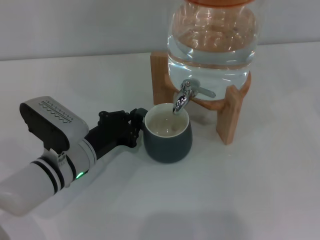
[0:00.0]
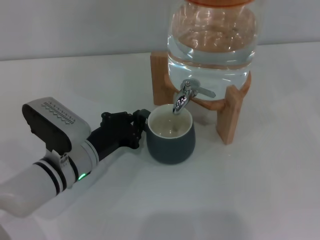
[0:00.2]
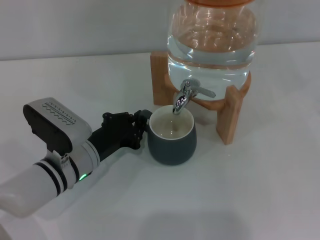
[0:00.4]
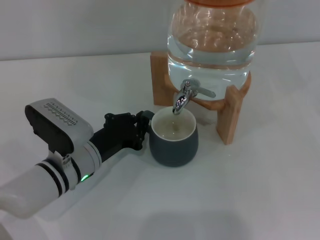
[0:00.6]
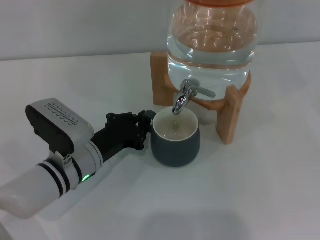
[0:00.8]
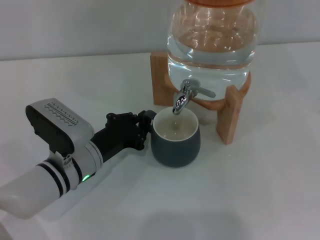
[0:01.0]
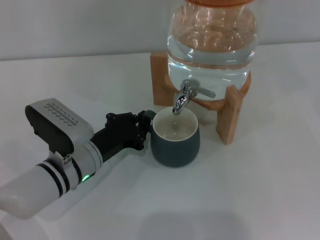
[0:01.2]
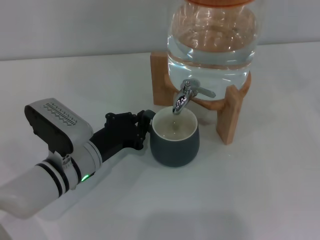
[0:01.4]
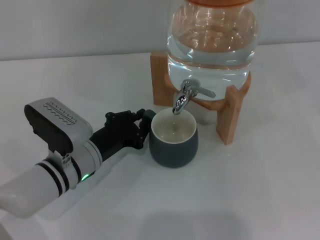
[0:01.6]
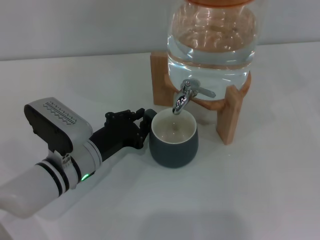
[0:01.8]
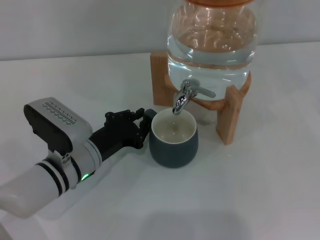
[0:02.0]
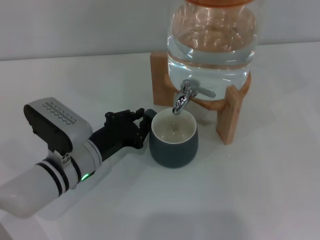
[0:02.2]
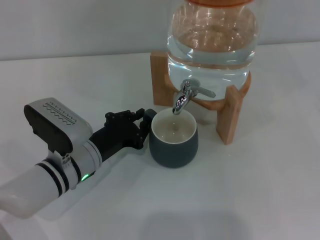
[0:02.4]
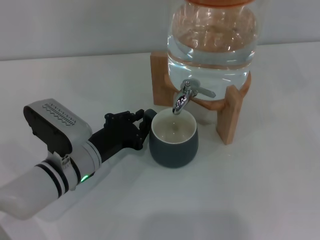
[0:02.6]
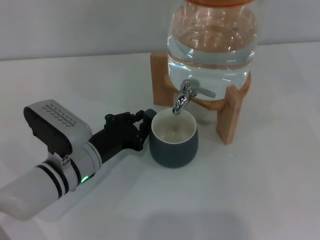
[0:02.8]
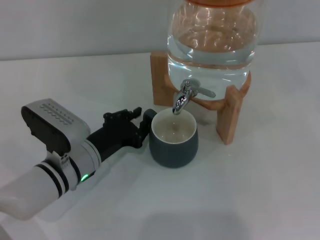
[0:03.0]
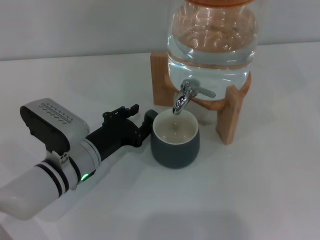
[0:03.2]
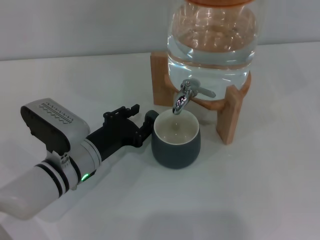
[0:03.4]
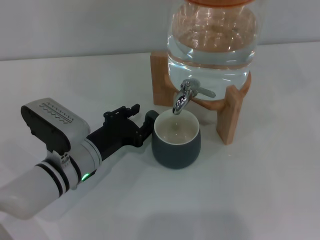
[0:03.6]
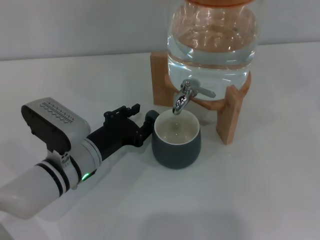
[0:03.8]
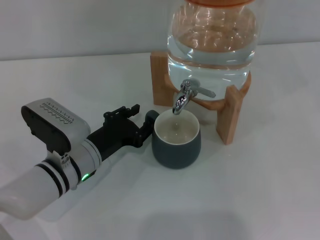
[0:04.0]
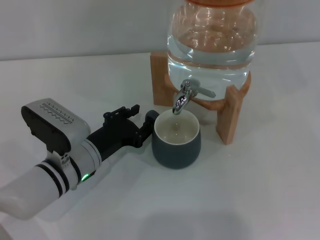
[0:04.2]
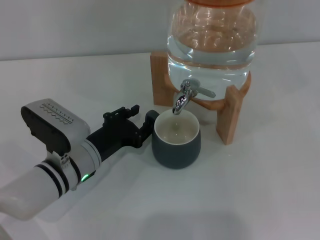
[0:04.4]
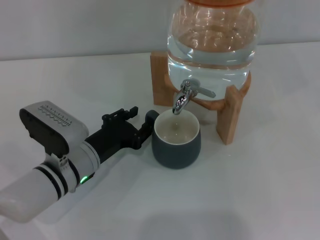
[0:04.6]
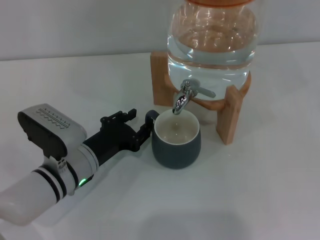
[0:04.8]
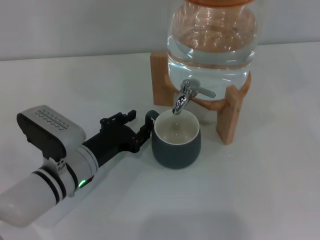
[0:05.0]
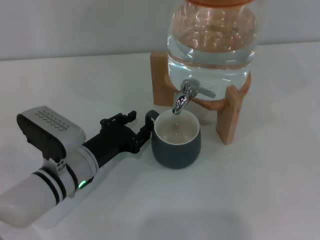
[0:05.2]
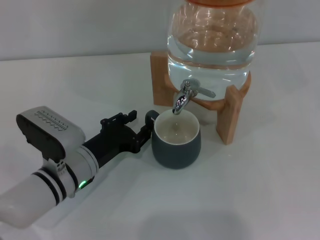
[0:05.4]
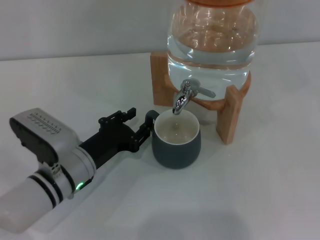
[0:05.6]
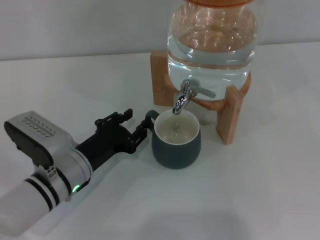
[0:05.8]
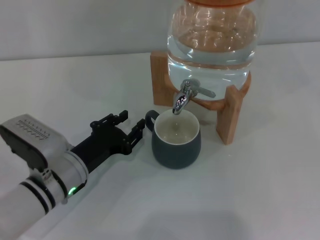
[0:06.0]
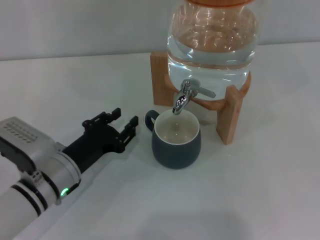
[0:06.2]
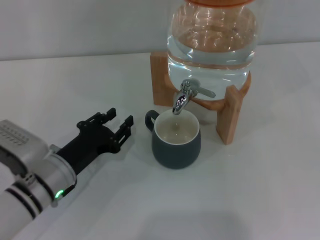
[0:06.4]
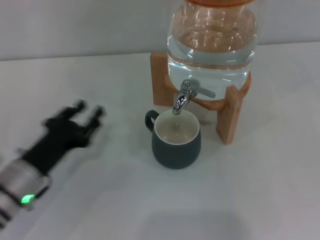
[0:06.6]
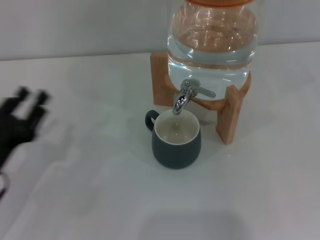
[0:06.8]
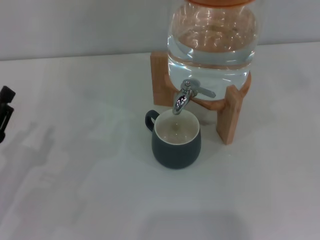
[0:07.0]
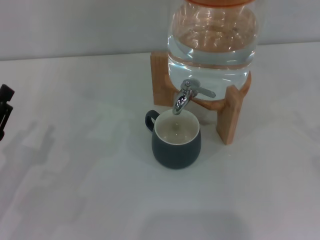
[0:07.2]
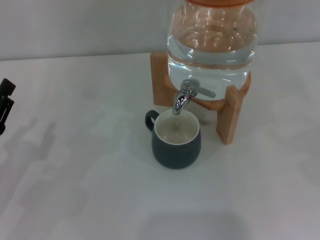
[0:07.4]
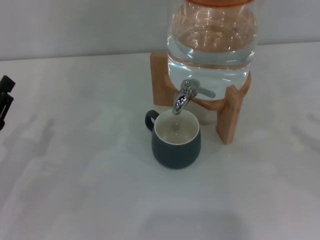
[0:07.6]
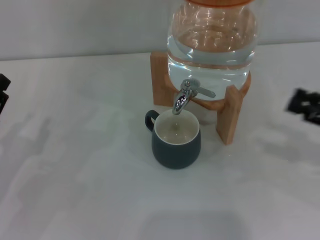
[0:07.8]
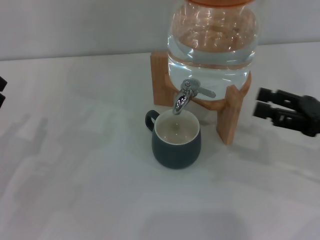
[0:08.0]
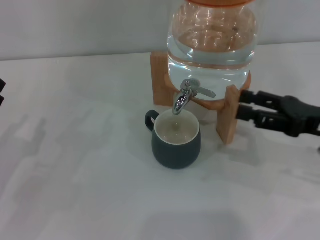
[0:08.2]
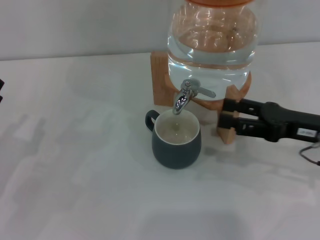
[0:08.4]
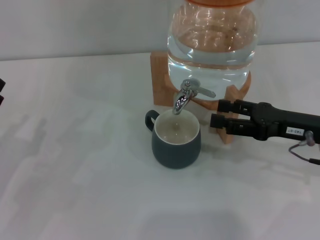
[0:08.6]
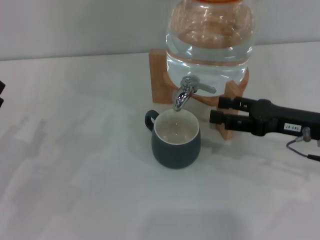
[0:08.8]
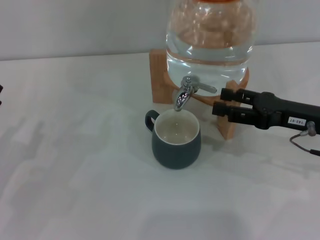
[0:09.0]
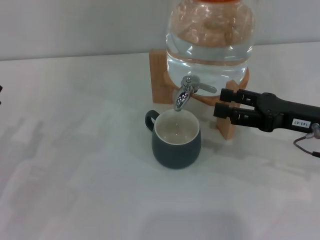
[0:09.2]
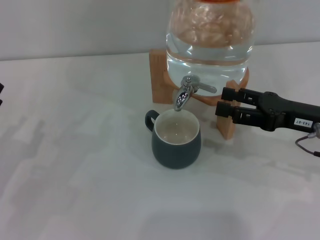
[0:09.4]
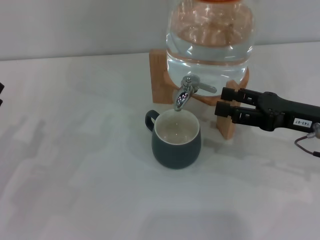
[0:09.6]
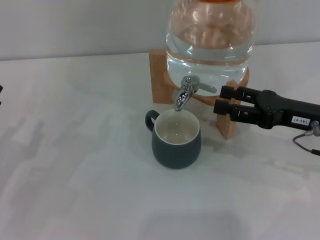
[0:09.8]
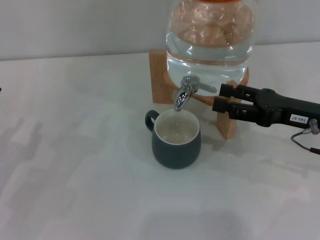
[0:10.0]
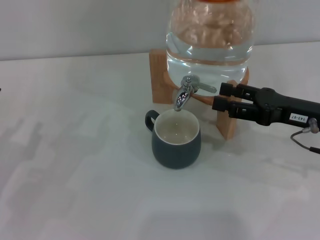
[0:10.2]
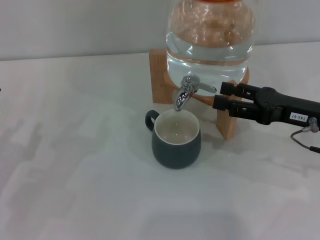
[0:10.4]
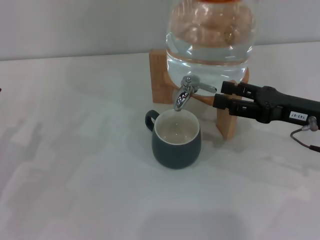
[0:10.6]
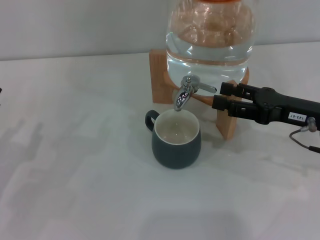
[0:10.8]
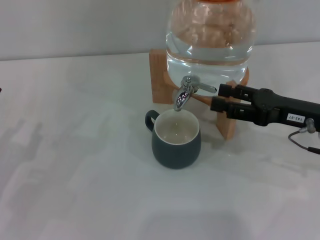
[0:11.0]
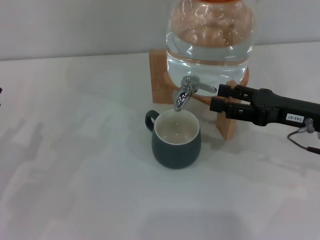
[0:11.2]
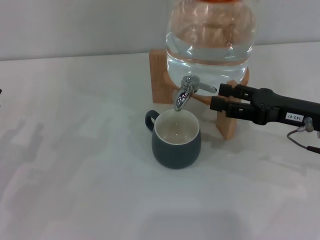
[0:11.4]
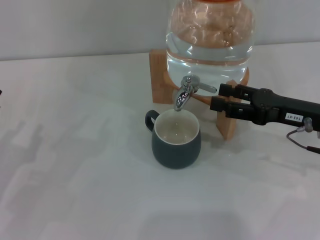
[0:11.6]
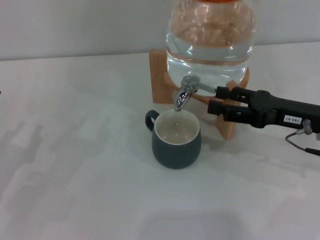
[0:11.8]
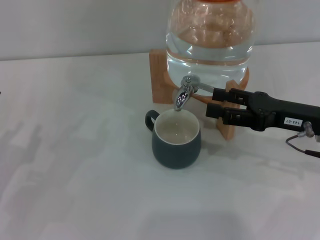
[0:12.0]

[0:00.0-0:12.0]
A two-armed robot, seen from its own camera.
Task of the whole recording: the left gripper pick up the black cup and place it horizontally under the faucet, the right gripper turn on the faucet to fill the cup, and then turn off the faucet.
Step, 0:00.0 to 0:06.0: Move the cup beneath the water dispenser nozzle with the left gripper.
0:00.0 to 0:04.4: Both grippers stay put.
0:04.4 to 0:06.0: The grippers stay close to where they were, moving slightly.
0:06.0 to 0:07.6: The left gripper travels to the left by about 15 cm. Meanwhile the right gripper goes approximately 5 cm to the left.
0:07.6 to 0:09.0: The right gripper shifts about 15 cm to the left and forward.
0:09.0 to 0:12.0: Both grippers stay about where they are.

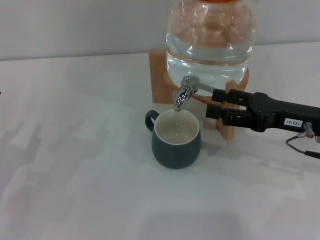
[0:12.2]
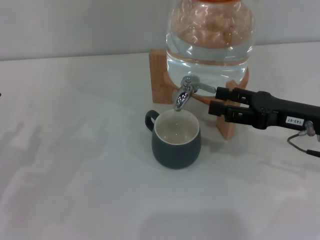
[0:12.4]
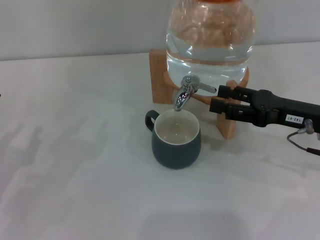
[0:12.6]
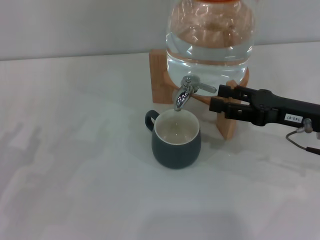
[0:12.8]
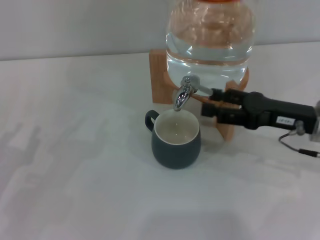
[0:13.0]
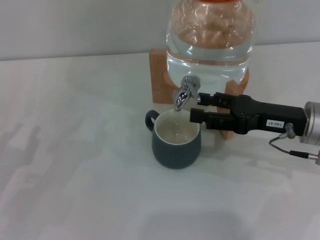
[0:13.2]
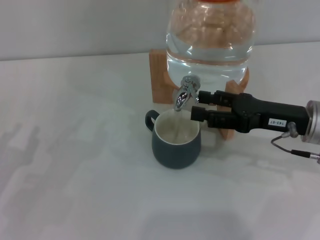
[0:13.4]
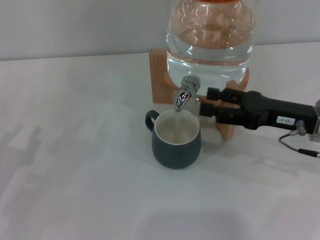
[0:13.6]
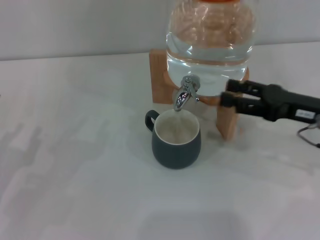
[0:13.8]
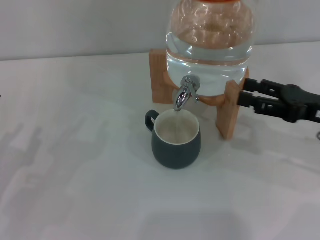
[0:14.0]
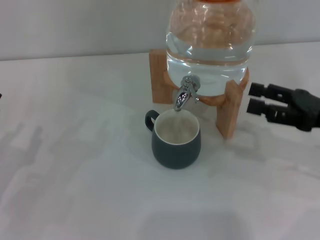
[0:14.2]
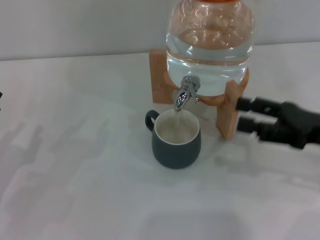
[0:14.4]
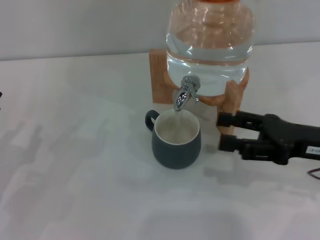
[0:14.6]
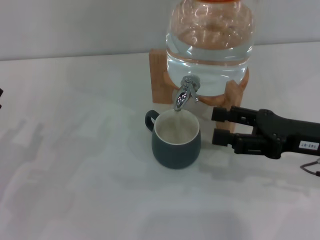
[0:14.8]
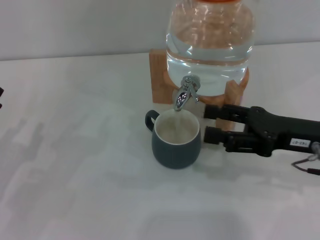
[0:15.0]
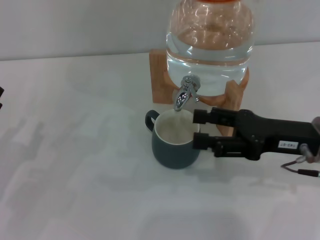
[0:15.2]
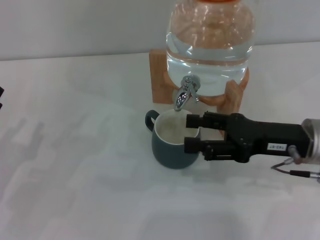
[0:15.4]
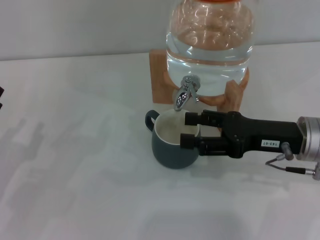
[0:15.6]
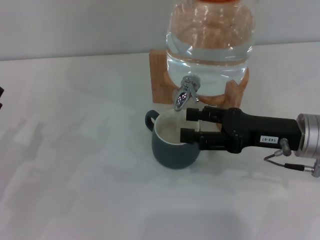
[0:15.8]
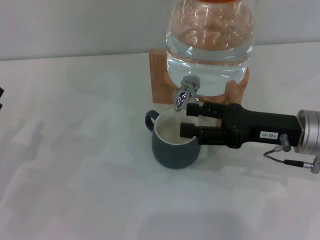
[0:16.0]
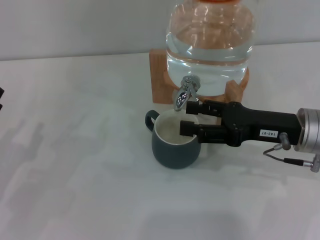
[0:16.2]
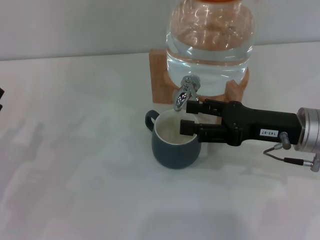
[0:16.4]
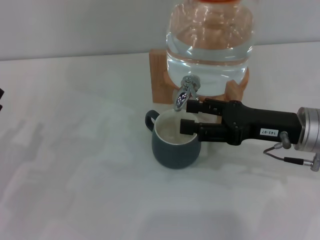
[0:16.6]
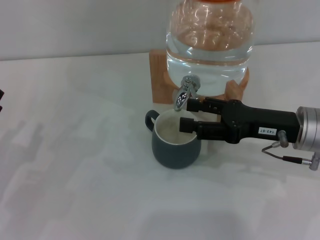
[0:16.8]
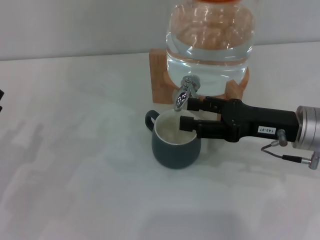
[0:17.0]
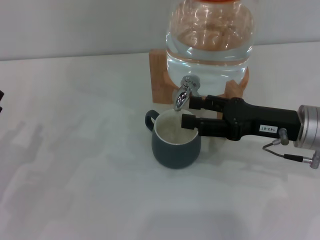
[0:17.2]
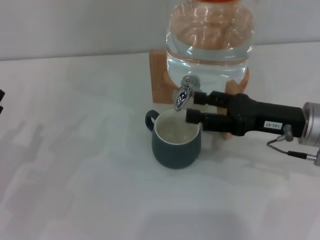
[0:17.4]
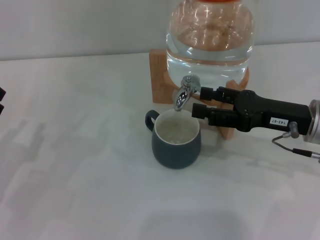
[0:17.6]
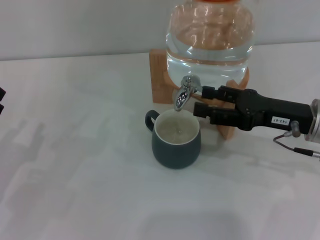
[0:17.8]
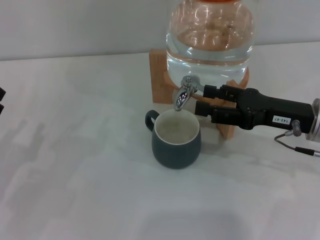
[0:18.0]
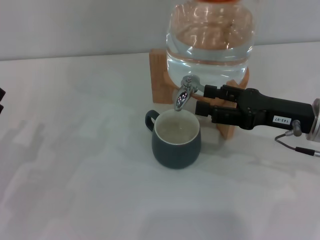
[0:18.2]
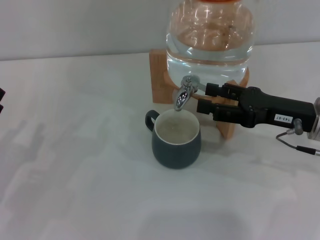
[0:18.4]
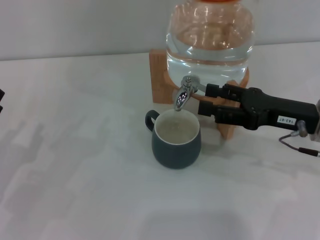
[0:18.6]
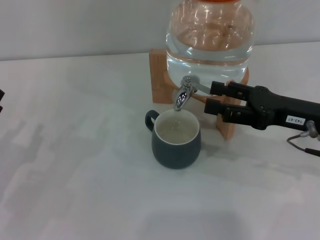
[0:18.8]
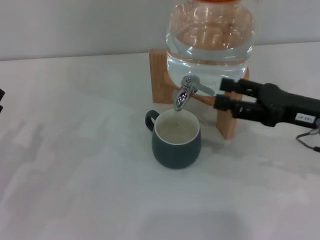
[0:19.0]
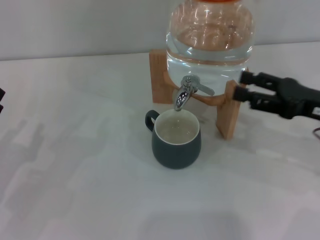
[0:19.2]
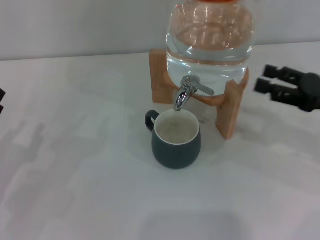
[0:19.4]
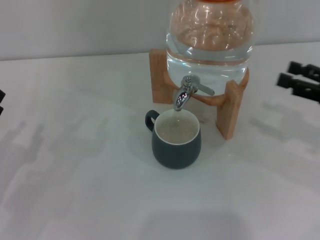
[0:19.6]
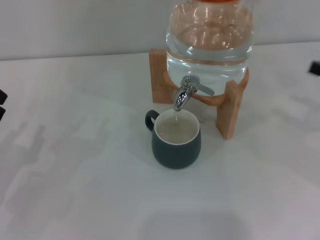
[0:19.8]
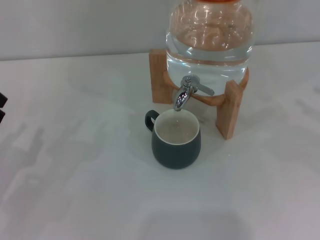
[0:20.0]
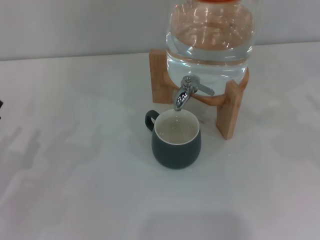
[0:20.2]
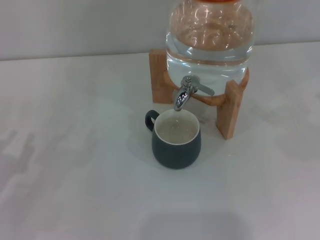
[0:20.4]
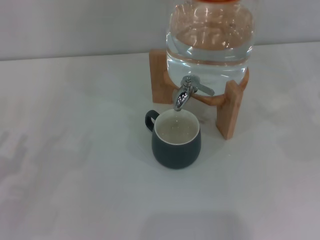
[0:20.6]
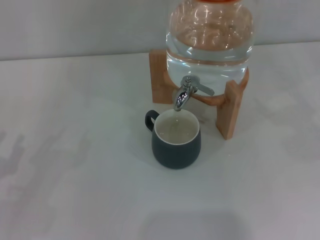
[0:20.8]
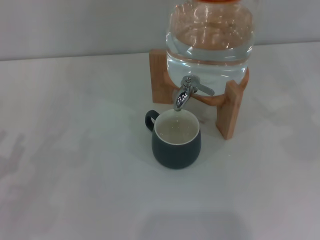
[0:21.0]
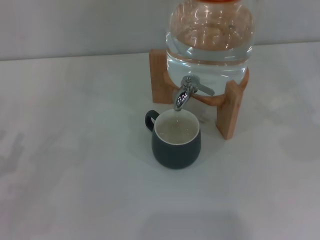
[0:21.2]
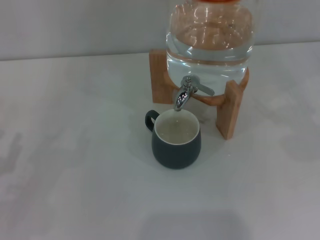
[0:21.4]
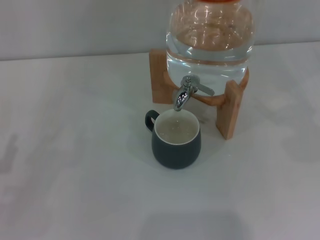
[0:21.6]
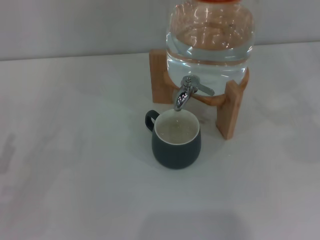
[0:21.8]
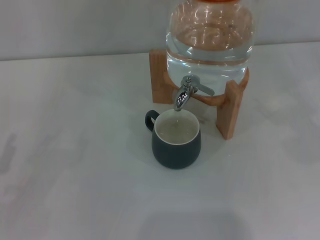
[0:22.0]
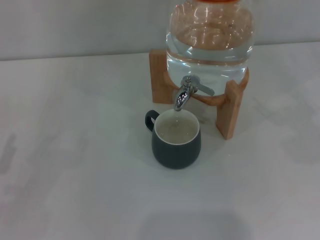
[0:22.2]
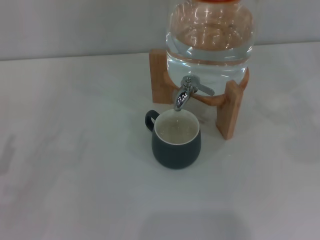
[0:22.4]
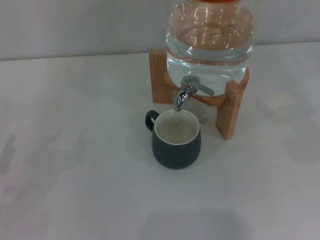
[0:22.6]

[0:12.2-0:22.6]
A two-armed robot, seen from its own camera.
Task of the whole recording: the left gripper pick up the black cup and place it horizontally under the faucet, the right gripper turn on the faucet to fill the cup, and then turn off the faucet.
Step, 0:13.6 to 0:18.8: Close the dispenser valve with the right gripper.
0:12.2 to 0:18.2: The grippers move only a little.
0:18.2 to 0:19.6: The right gripper heads to the right, covering approximately 10 cm.
0:19.6 to 0:21.2: The right gripper heads to the right, covering approximately 10 cm.
